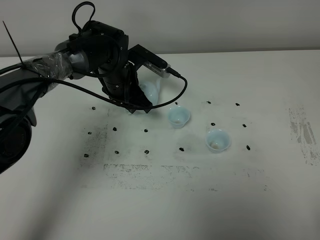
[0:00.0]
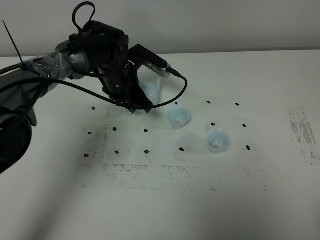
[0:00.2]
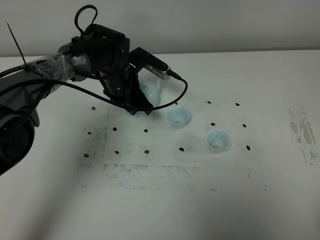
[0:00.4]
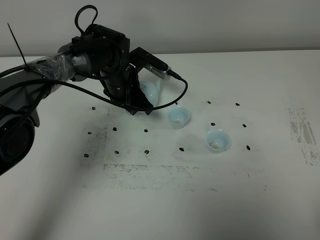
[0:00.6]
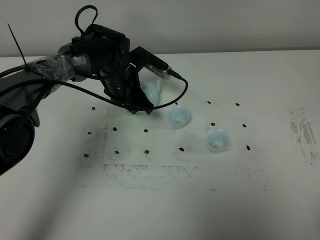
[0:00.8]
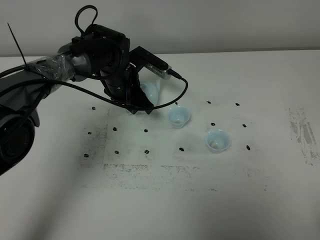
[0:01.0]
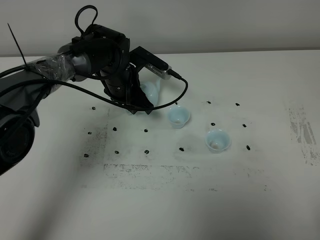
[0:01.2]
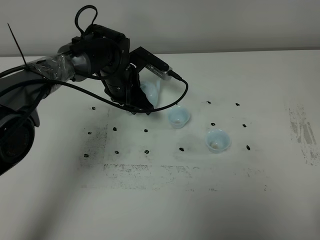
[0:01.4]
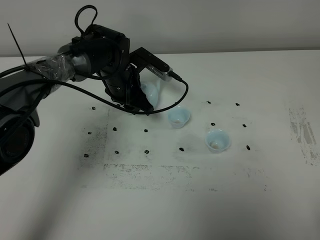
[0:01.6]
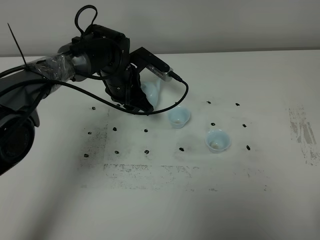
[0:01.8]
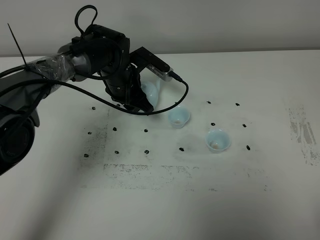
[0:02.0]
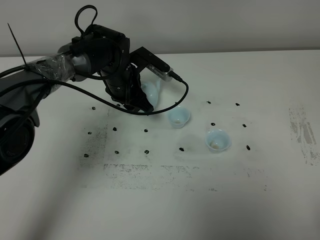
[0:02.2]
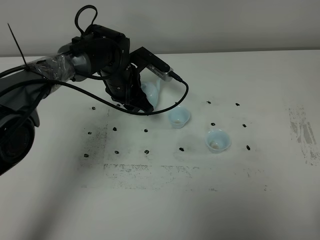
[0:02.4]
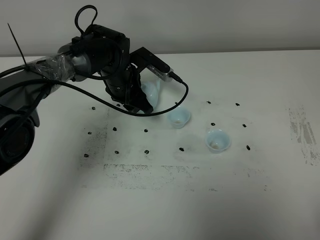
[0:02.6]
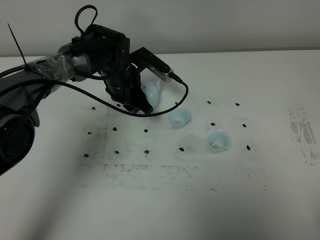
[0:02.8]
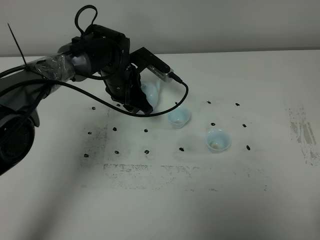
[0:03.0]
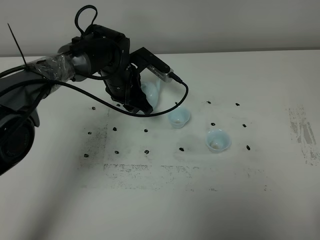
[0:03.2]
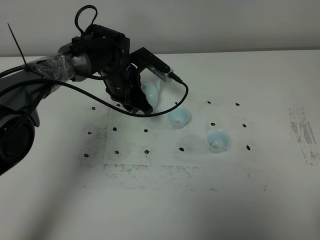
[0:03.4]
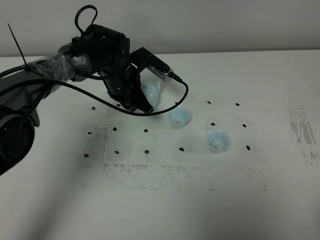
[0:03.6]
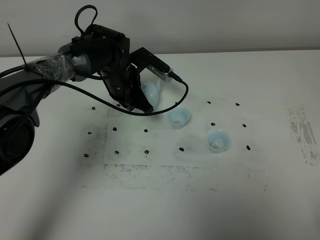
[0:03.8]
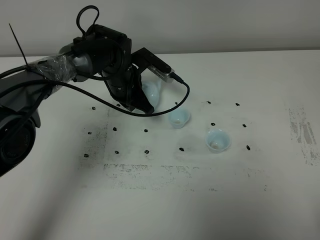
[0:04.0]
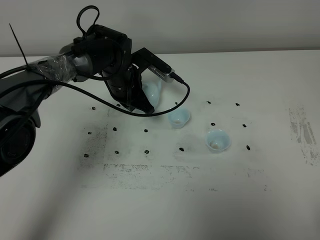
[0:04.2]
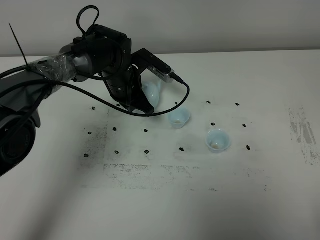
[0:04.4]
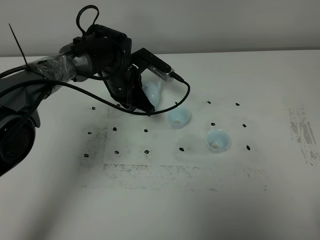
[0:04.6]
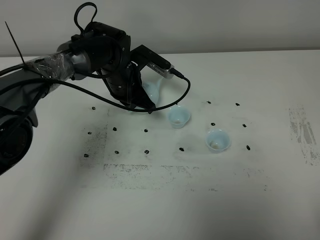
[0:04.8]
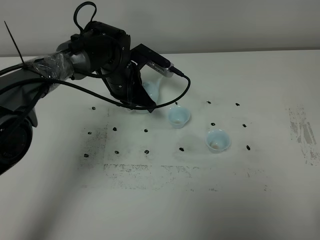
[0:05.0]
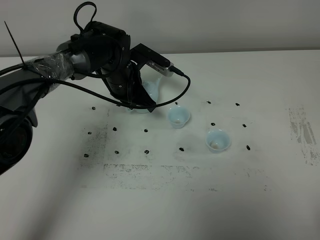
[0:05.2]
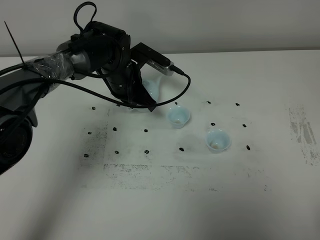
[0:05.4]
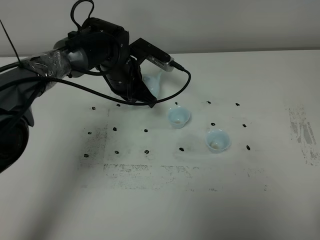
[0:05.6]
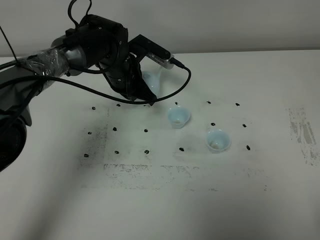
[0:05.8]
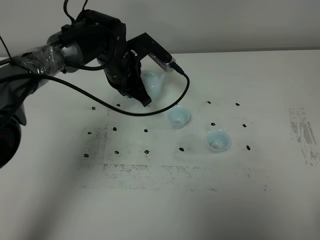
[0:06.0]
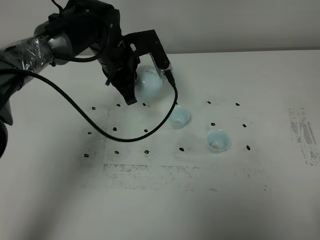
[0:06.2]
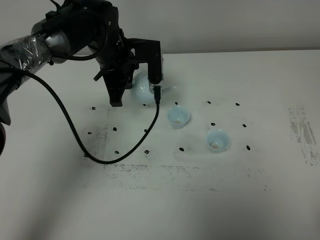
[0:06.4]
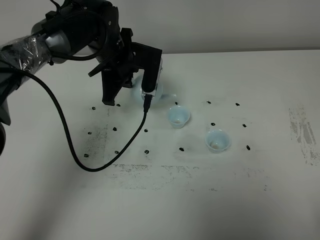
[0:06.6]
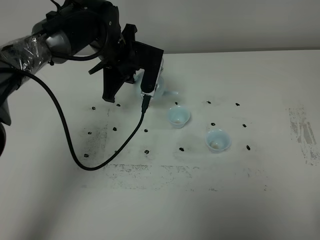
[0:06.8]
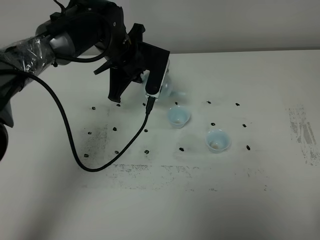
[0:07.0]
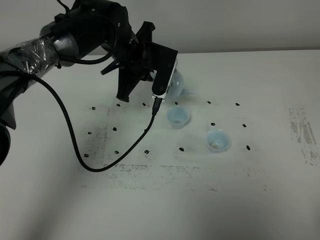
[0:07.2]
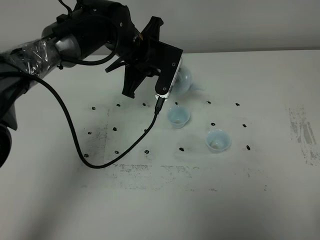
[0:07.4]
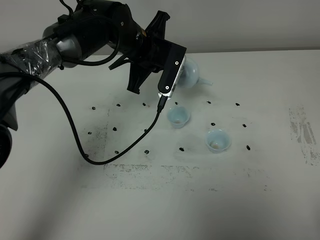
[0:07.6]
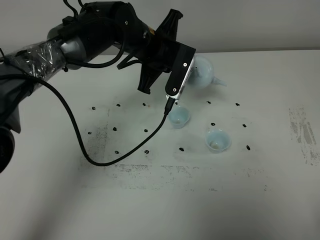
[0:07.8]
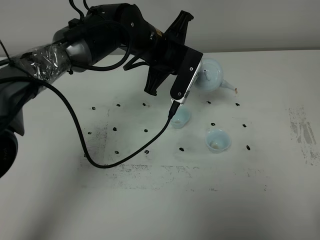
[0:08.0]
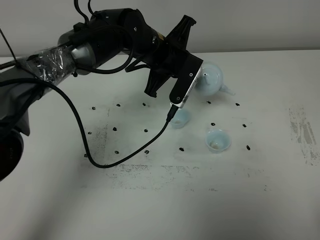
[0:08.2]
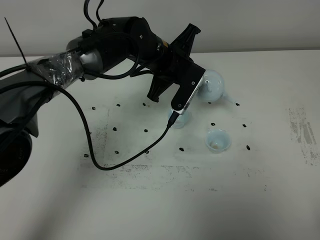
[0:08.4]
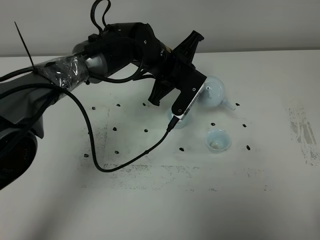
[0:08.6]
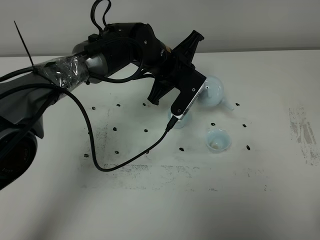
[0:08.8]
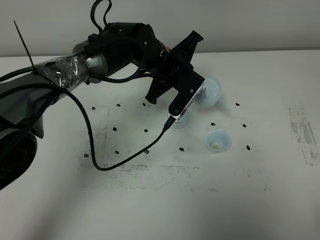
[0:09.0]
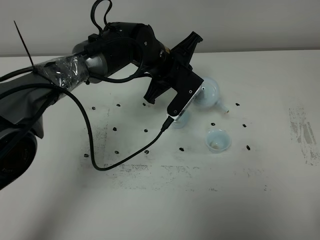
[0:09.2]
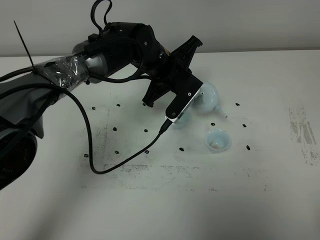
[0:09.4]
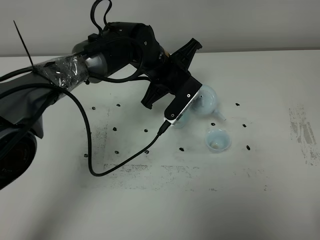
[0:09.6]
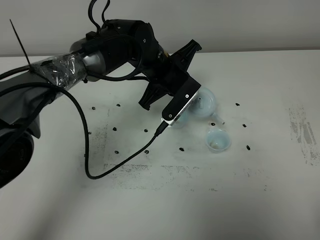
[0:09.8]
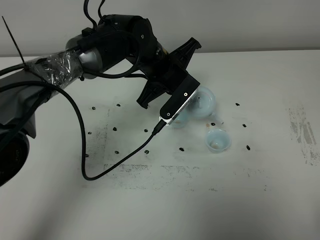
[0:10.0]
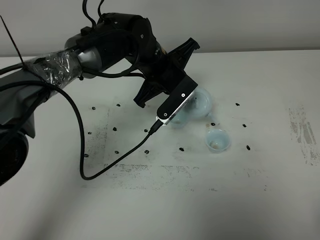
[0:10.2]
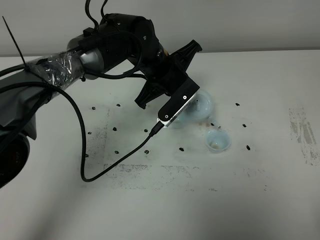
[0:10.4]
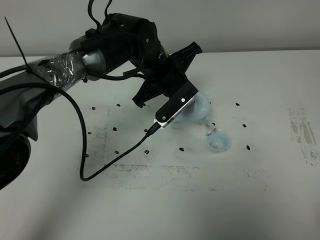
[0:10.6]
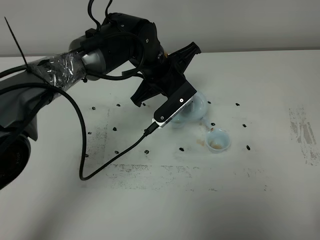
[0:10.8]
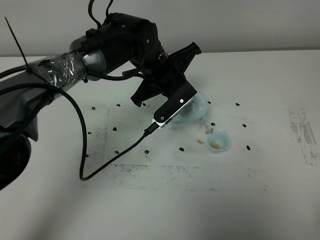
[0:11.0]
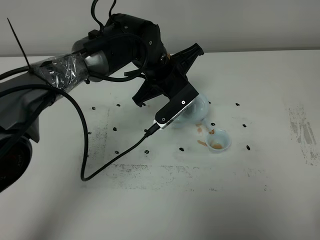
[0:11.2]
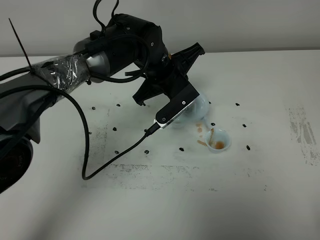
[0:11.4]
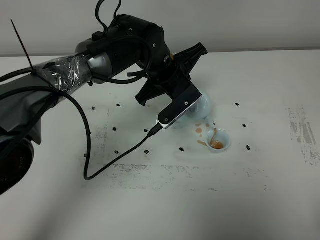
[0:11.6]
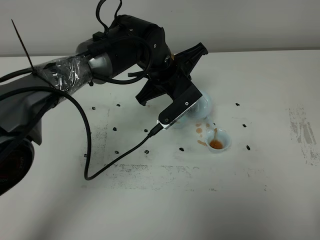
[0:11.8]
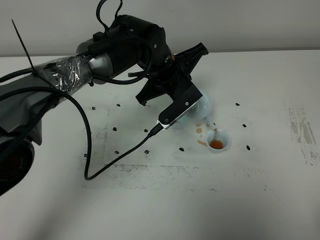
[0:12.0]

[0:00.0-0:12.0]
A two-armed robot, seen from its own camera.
Task of the whole recording: grasp the blue porcelain teapot and pour the tea into the two blue porcelain teacups one by one, put the blue porcelain teapot back in its original place.
Step, 0:00.0 to 0:05.6: Pick up the teapot with the left gripper.
0:00.0 to 0:01.6: The two grippers keep their place.
0:01.6 to 0:03.0: Both grippers stay put.
0:03.0 to 0:04.4: The left gripper closes up.
0:04.4 to 0:06.0: There are only small adjustments of the grippers.
0:06.0 to 0:07.6: The left gripper moves approximately 5 cm.
0:07.6 to 0:09.0: The left gripper changes place by roughly 5 cm.
0:09.0 to 0:12.0: The grippers stay close to where they were, moving slightly.

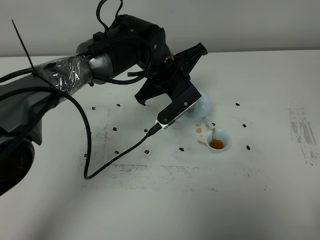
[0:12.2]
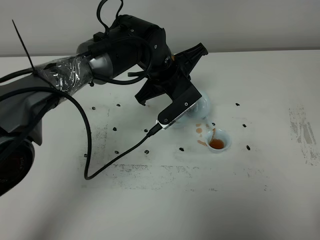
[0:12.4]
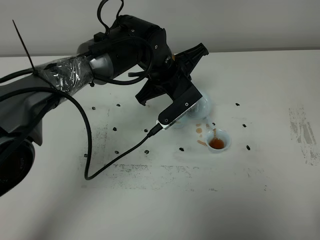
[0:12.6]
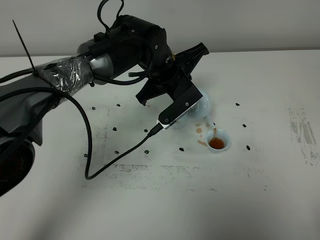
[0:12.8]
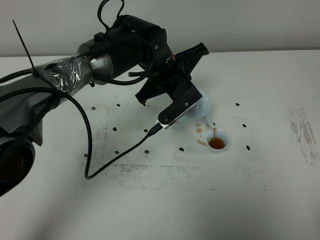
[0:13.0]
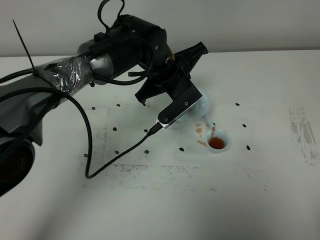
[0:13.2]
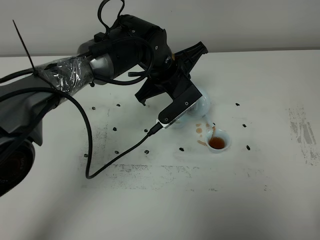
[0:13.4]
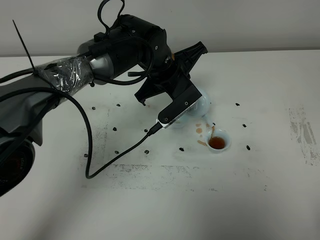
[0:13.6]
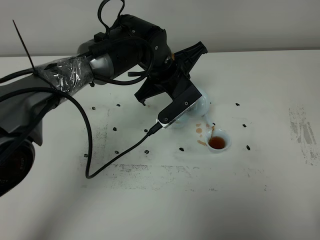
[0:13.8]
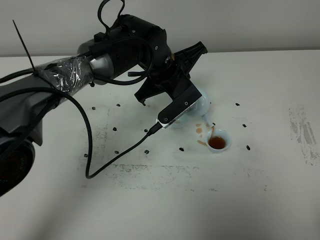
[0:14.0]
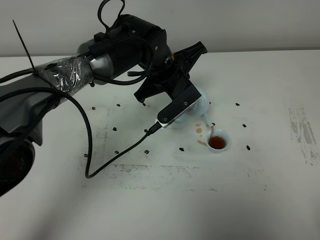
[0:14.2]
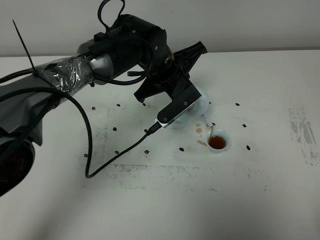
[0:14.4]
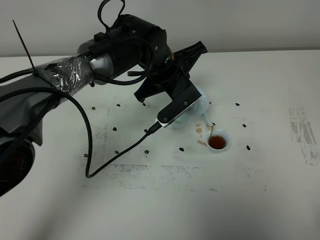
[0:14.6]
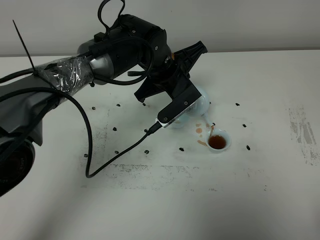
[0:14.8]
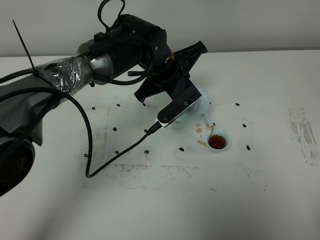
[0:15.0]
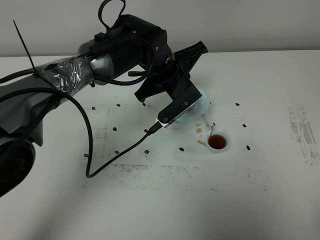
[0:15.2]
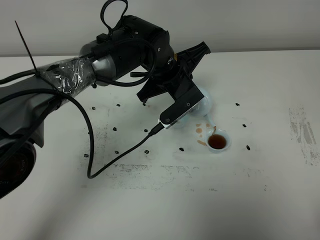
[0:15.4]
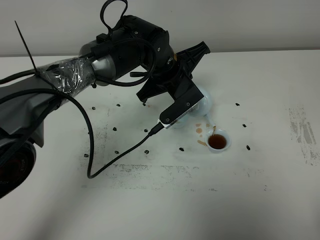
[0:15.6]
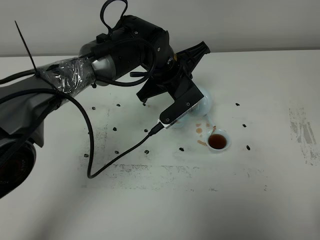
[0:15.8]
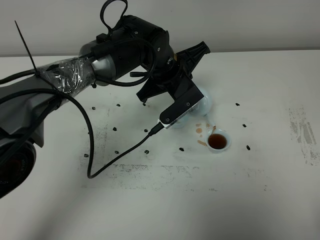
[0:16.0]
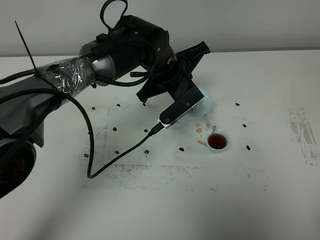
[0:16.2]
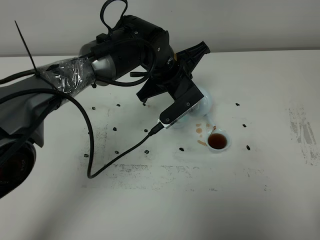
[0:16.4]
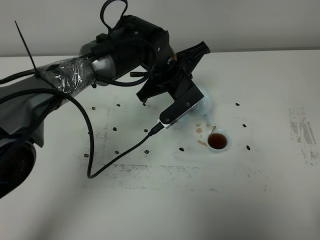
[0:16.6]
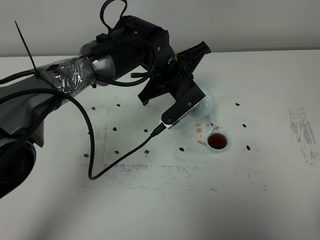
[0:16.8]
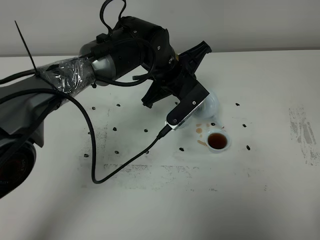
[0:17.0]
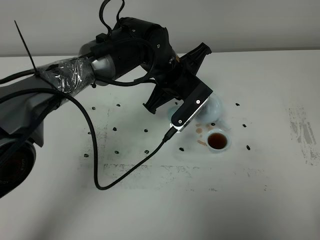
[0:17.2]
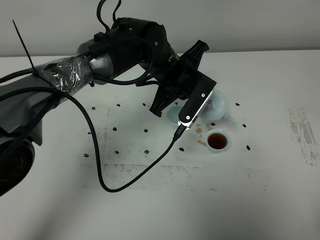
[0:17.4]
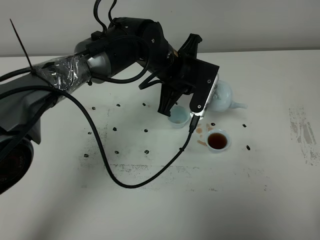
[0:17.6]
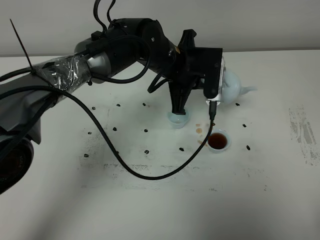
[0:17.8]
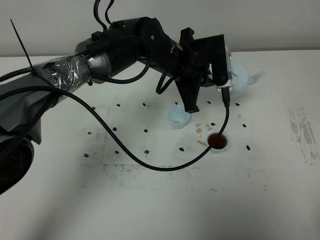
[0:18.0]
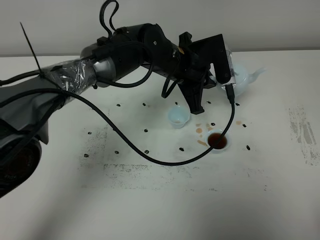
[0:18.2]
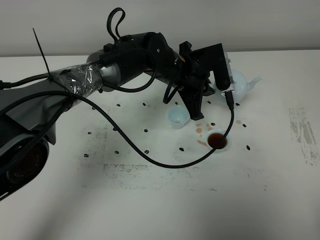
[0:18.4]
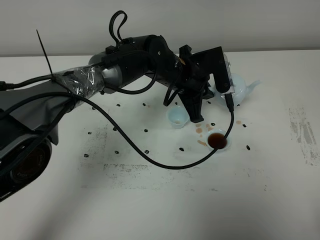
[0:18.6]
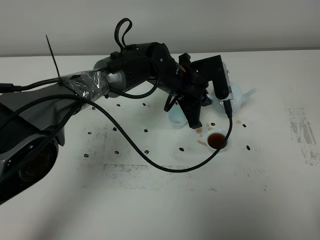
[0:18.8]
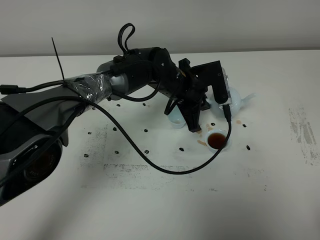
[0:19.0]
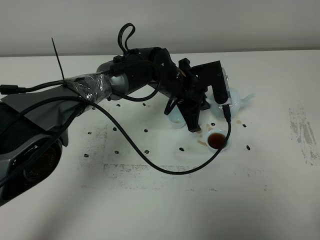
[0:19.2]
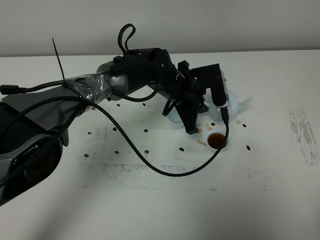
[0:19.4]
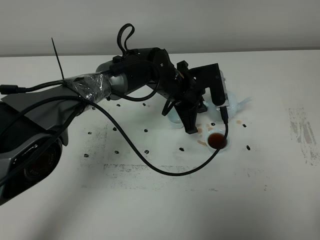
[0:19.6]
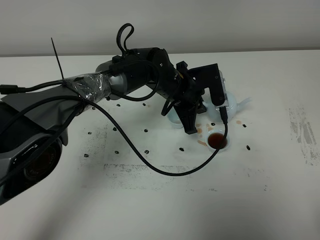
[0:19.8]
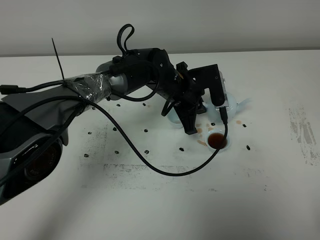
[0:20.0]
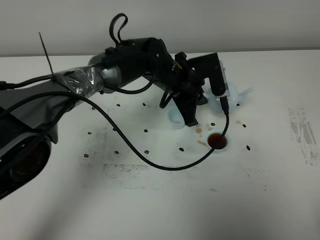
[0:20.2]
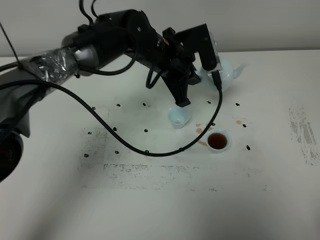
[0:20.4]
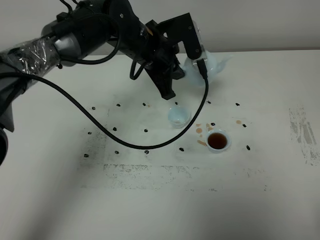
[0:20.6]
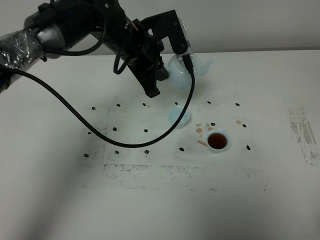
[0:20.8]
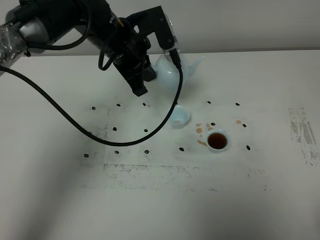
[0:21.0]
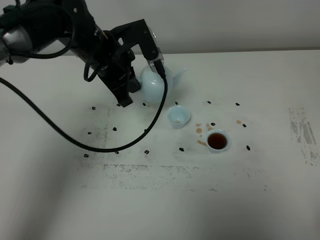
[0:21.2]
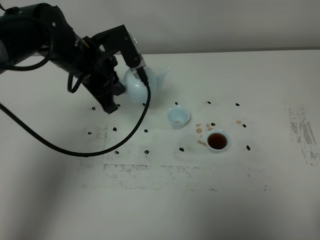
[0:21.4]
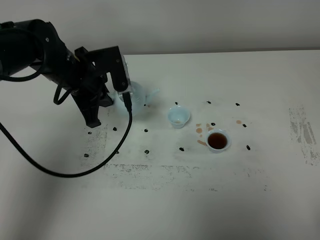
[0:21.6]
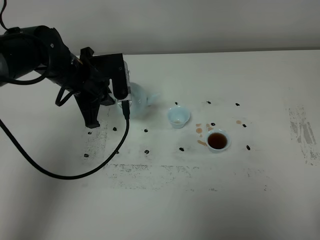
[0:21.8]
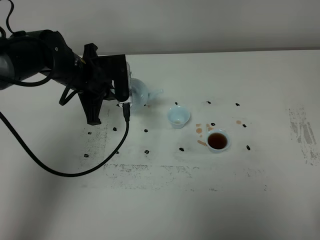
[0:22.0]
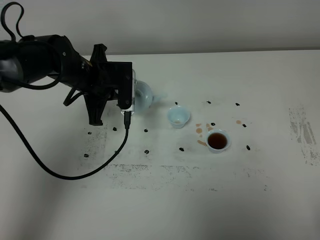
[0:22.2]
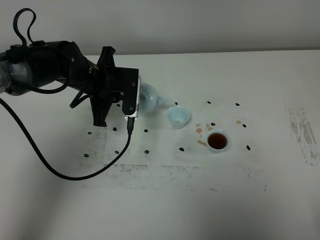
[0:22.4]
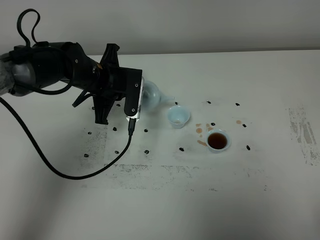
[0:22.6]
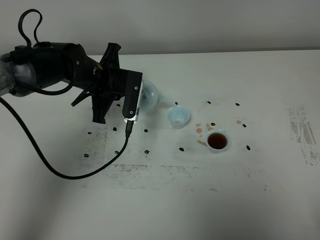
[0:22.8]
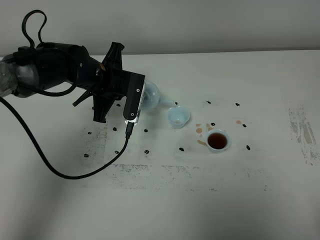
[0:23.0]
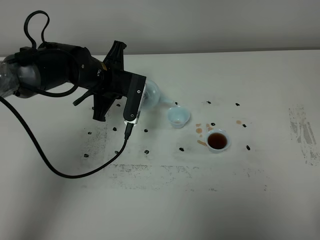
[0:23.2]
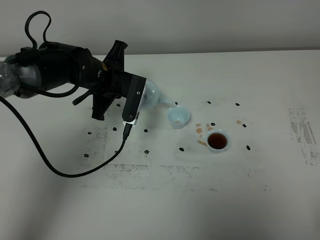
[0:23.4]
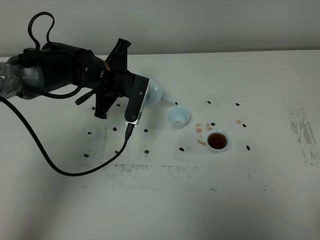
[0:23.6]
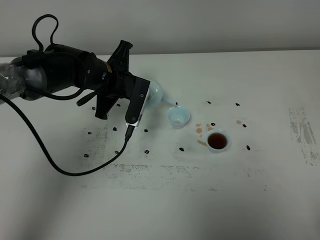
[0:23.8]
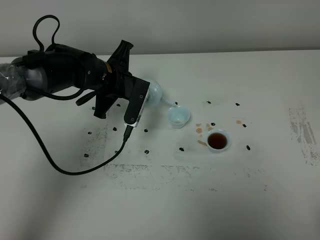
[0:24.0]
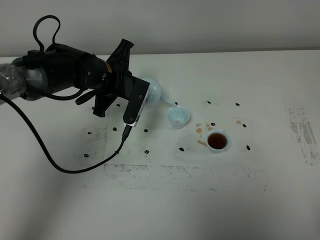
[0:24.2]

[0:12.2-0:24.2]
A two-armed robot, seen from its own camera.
Task of the whole recording: grasp the blue porcelain teapot and pour the tea into the two blue porcelain teacups one by one, put the blue porcelain teapot back in its original place.
Step, 0:12.2 to 0:17.2: Pour tea into the teacup with the left gripper.
0:12.2 to 0:16.6: Both grippers stay put.
0:18.2 to 0:19.8: The left gripper moves downward, approximately 5 cm.
0:19.8 to 0:21.2: The left gripper heads to the left and upward, covering about 15 cm.
0:21.2 to 0:22.6: The left gripper is displaced downward by about 5 cm.
0:22.6 to 0:24.2: There are only small adjustments of the grippers.
